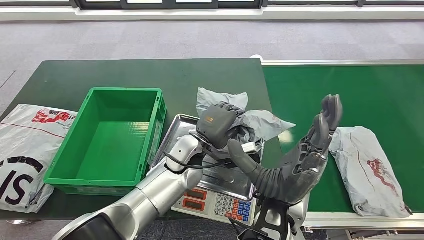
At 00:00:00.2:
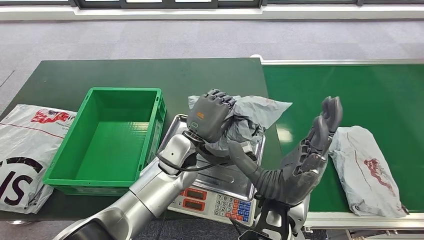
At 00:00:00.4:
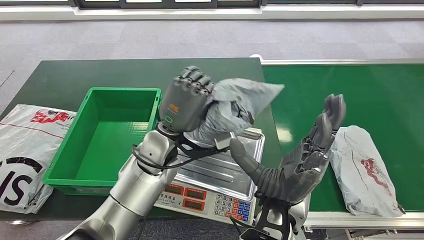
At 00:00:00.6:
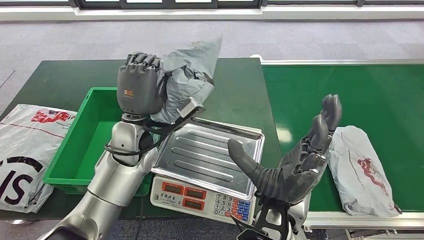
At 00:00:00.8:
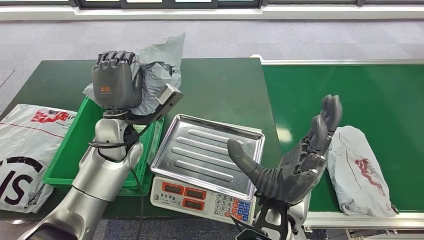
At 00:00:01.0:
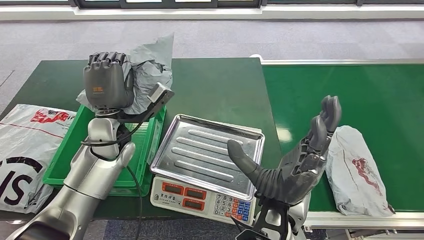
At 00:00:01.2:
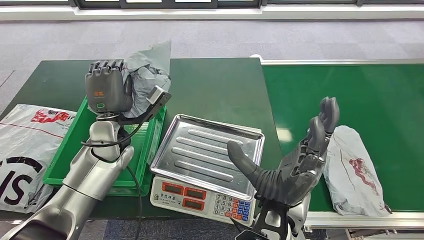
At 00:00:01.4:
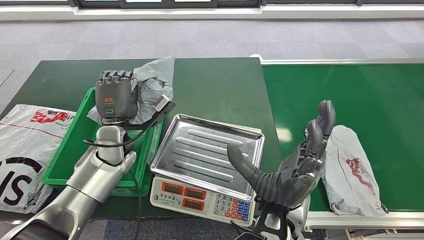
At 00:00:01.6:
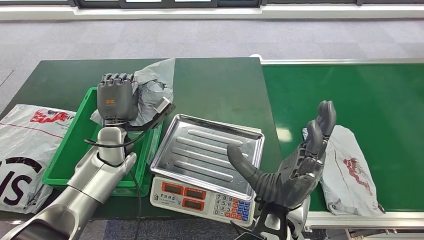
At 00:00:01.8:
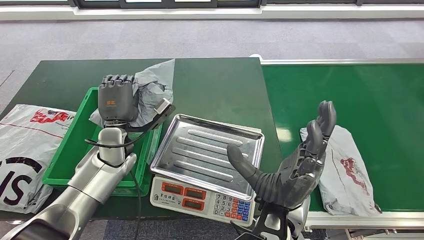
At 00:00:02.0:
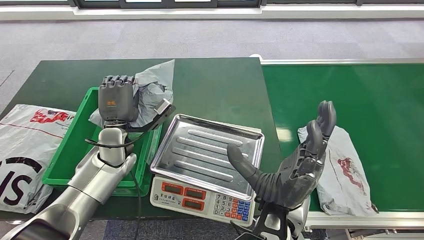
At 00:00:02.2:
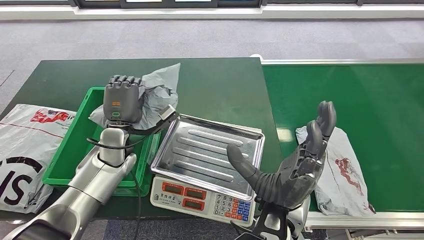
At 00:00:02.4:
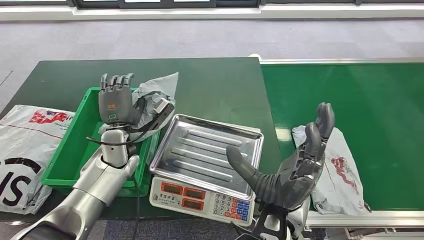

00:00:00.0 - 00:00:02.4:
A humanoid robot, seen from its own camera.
Step, 00:00:00.8 - 00:00:02.2: Place the package into the parcel locker.
